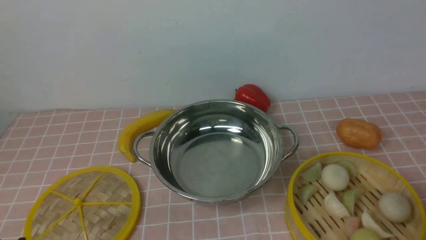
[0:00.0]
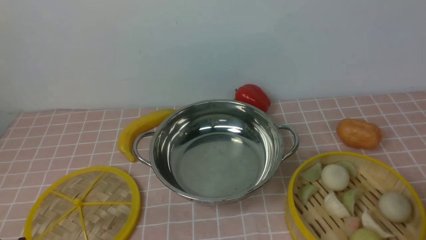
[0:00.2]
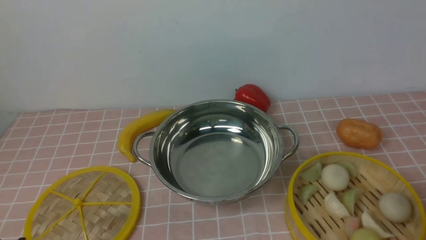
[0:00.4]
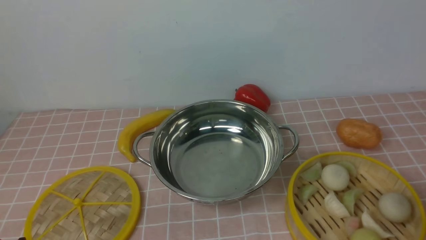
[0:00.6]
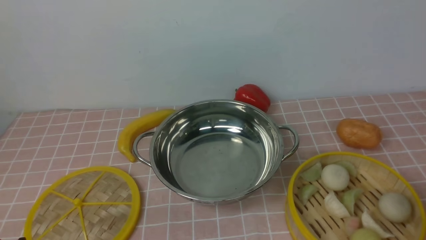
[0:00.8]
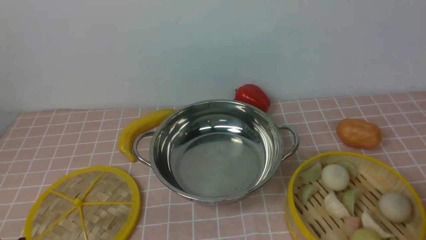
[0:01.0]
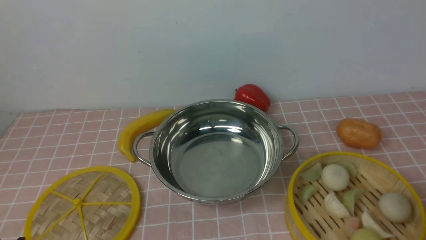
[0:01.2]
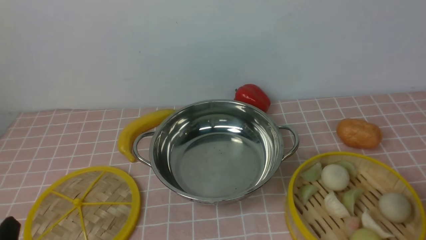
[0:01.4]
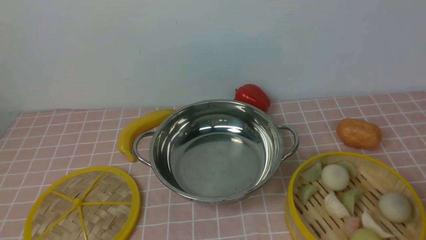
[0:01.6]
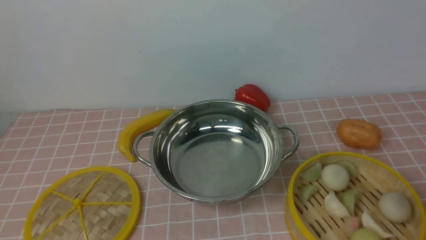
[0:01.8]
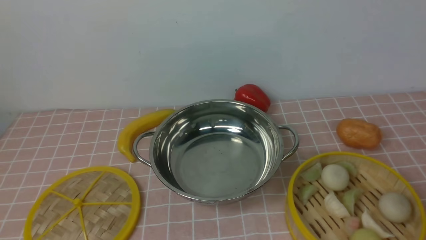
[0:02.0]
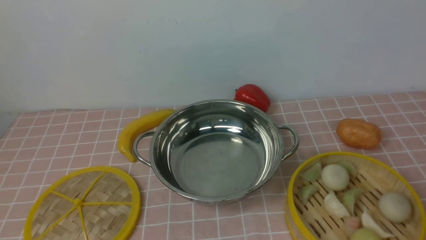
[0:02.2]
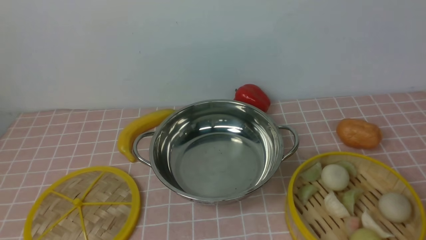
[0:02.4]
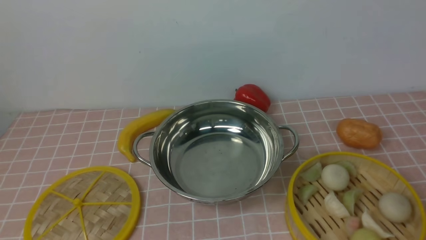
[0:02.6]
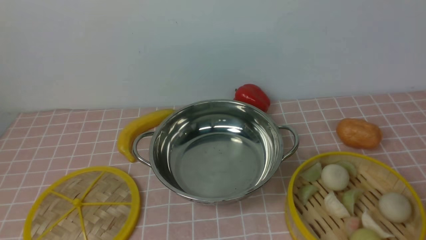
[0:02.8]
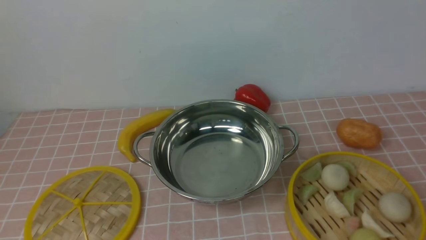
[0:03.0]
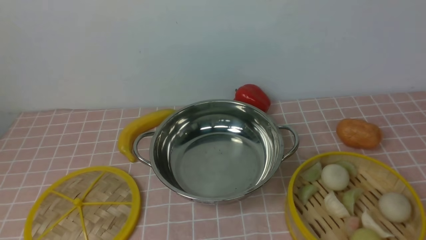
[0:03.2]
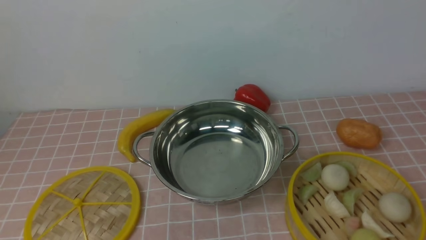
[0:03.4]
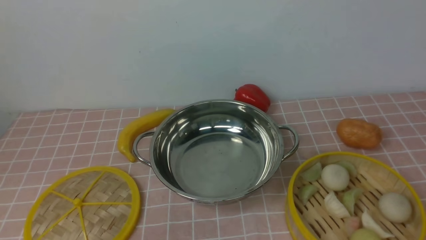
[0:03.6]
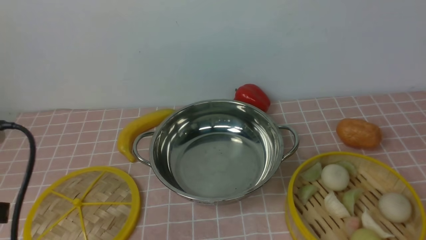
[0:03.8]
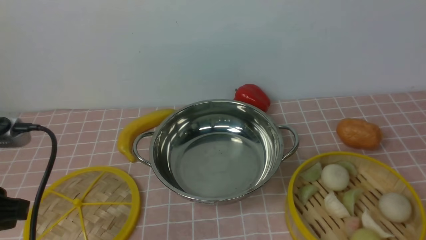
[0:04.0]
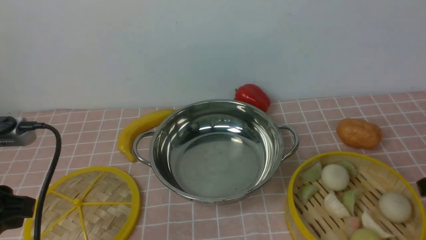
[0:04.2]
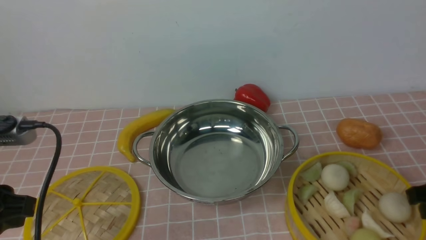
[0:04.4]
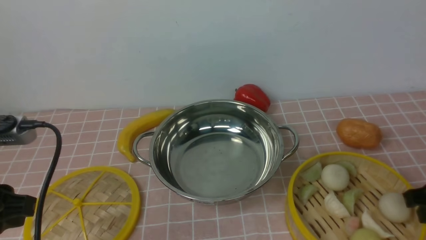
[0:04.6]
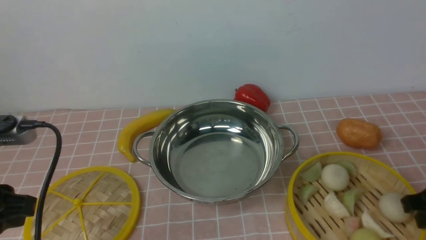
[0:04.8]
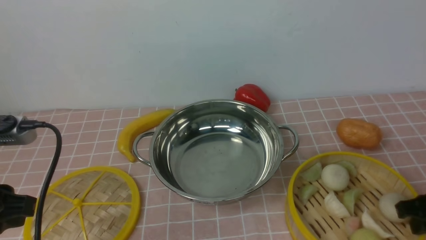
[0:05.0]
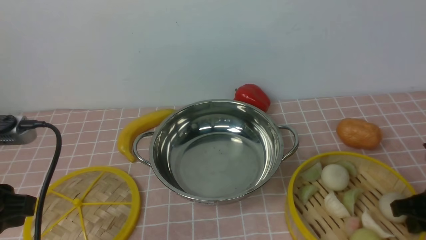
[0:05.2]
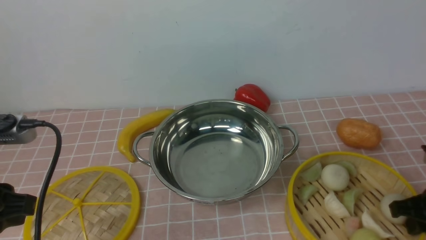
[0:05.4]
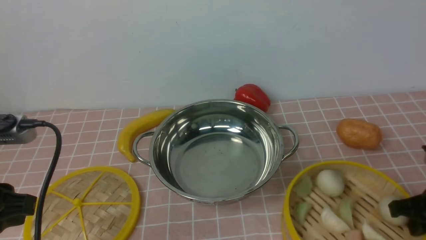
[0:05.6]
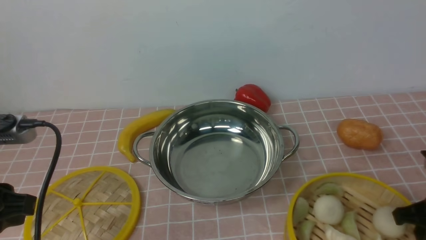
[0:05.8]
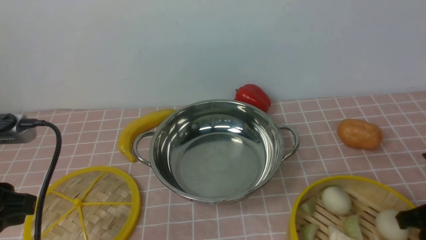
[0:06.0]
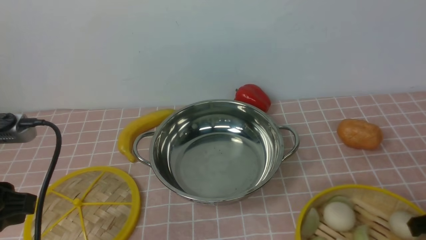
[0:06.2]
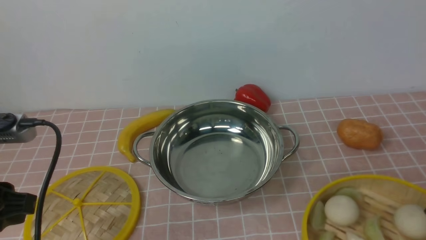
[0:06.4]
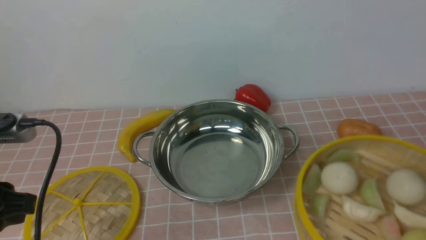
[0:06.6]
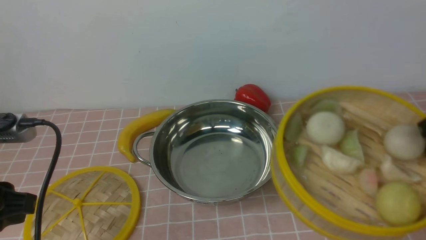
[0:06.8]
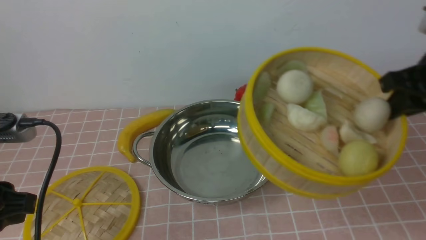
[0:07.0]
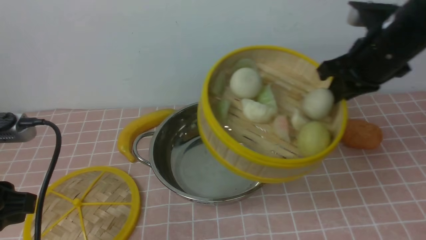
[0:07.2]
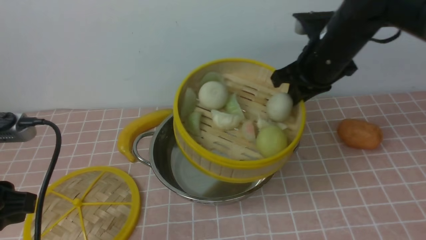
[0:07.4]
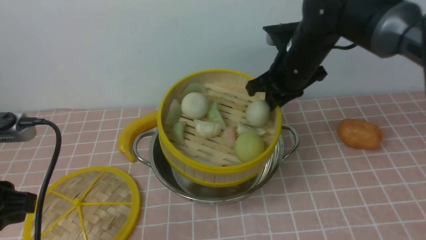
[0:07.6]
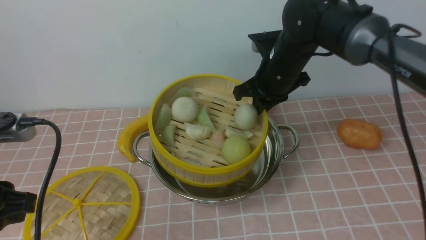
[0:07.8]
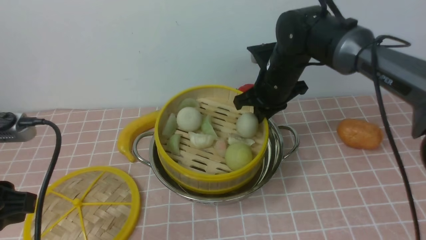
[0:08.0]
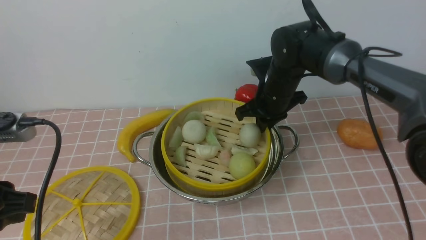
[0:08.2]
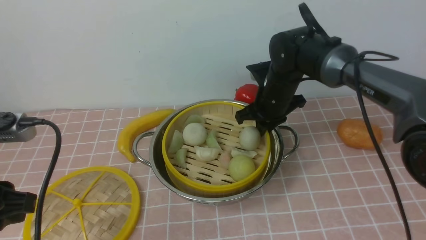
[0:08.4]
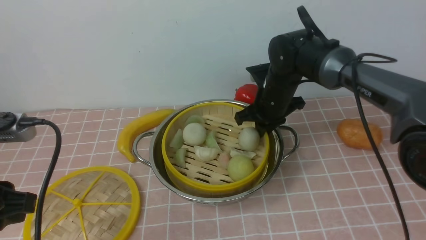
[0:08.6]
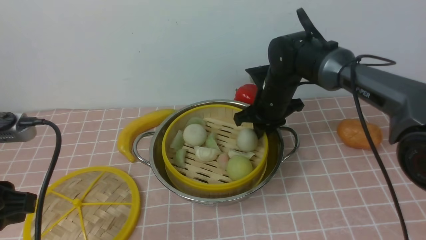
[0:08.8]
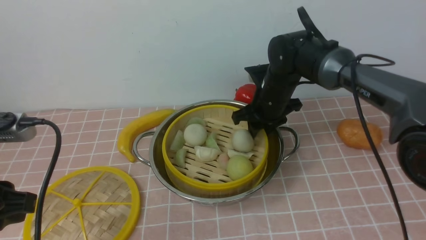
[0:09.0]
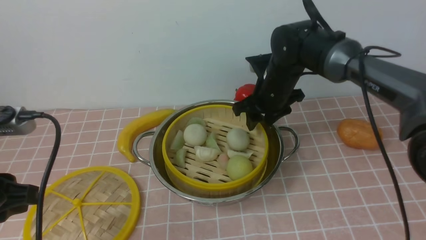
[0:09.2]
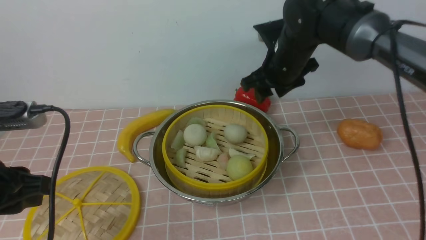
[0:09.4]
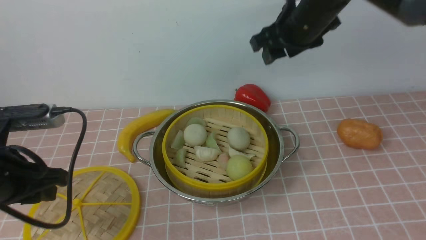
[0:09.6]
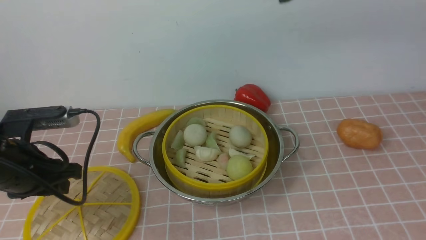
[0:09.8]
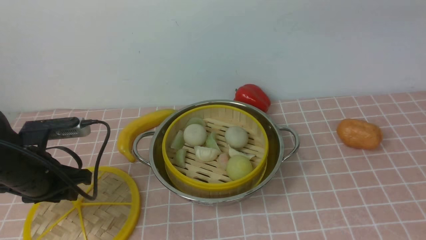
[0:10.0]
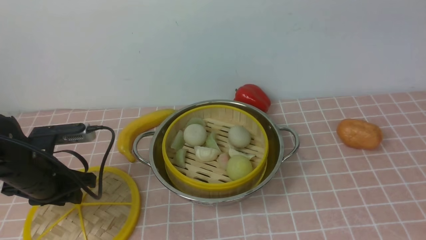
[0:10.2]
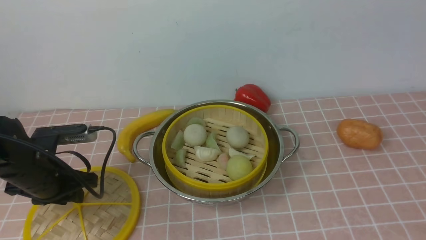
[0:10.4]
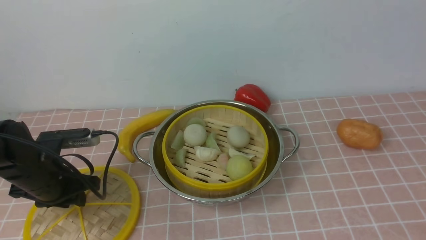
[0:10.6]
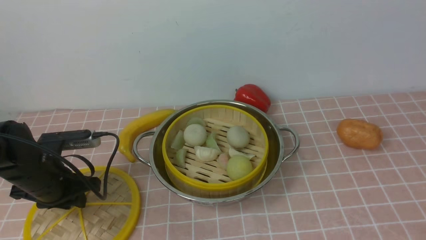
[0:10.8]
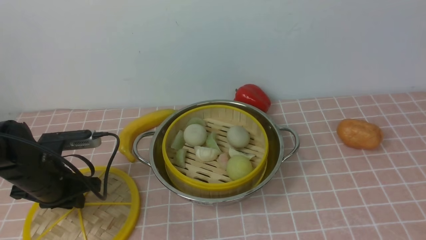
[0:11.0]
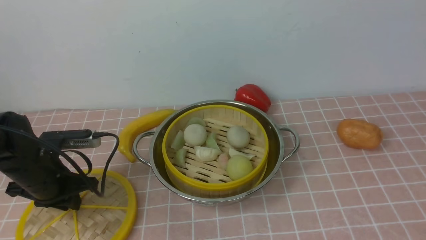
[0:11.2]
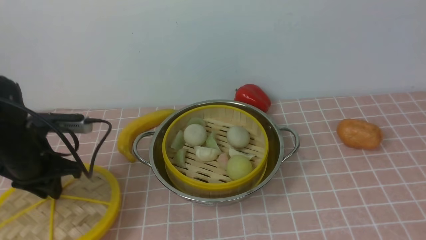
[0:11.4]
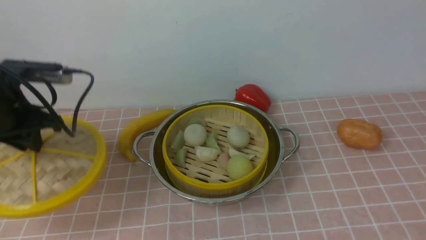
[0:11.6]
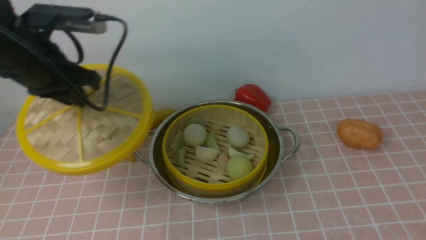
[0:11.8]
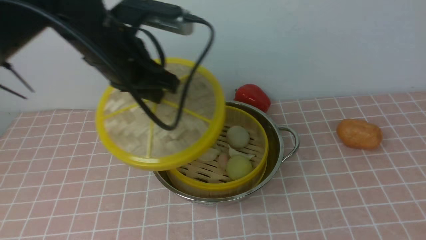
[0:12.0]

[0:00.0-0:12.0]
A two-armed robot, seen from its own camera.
Task of the whole recording: place the steamer in the pot on the pink tablecloth, and put the lid on the steamer.
Step, 0:00.0 to 0:06.4: use the right arm to lift the steamer closest to it.
Step, 0:06.6 to 0:09.2: use the right arm to put the steamer into the iron steamer pot in the middle.
Step, 0:09.4 to 0:11.2: use the left arm to lift the lid of the steamer.
0:03.0 to 0:04.4: The left gripper shifts approximately 15 cm forward.
0:04.4 to 0:06.0: The right gripper closes up.
0:06.0 to 0:07.6: The right gripper is displaced forward, to the left and upward by approximately 30 cm.
0:07.6 to 0:09.0: The right gripper goes approximately 10 cm downward, and opens its fingers.
0:09.0 to 0:10.4: The right gripper is displaced upward and backward by roughly 50 cm. The left gripper heads downward and forward, covering approximately 20 cm.
0:10.4 to 0:12.0: The left gripper shifts some 25 cm upward and to the right. Meanwhile the right gripper moves roughly 5 cm.

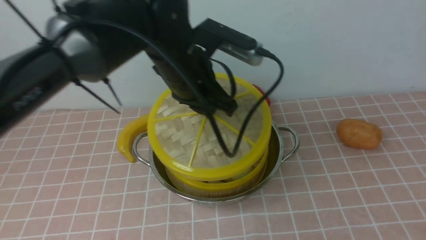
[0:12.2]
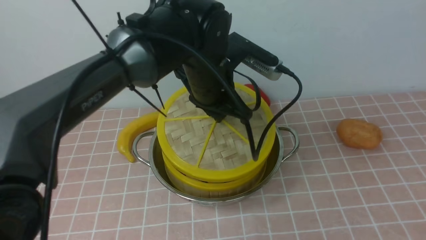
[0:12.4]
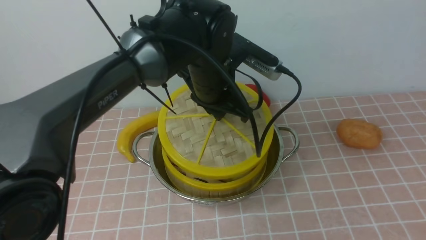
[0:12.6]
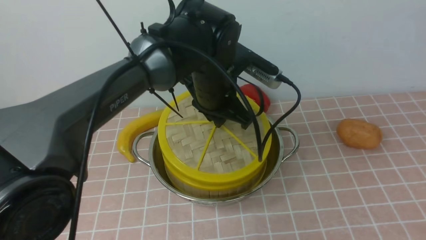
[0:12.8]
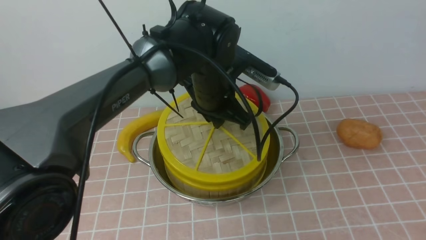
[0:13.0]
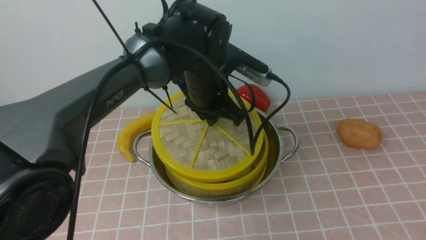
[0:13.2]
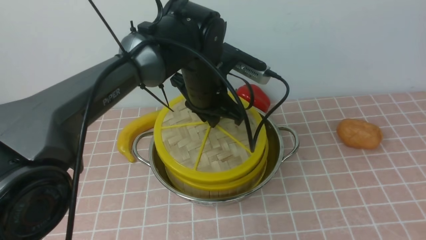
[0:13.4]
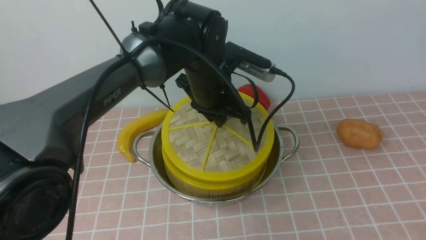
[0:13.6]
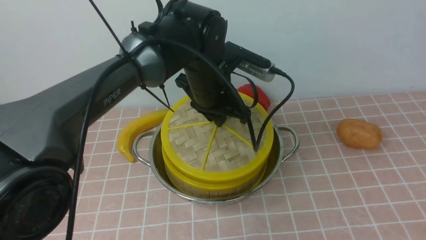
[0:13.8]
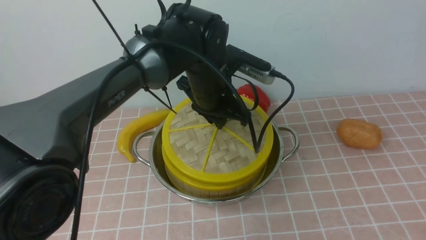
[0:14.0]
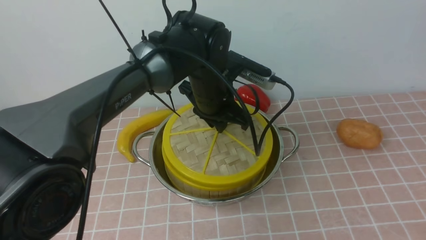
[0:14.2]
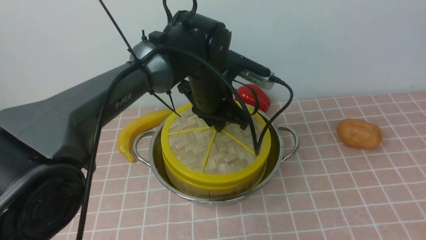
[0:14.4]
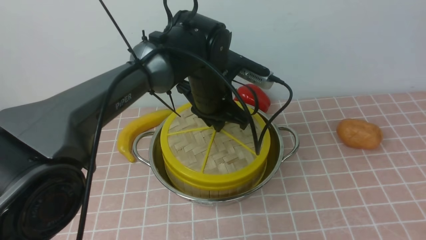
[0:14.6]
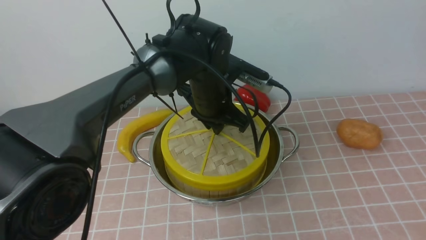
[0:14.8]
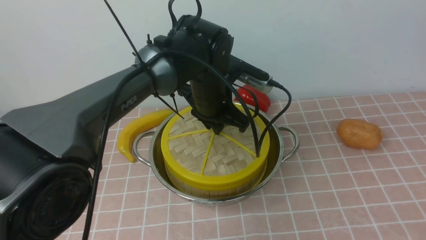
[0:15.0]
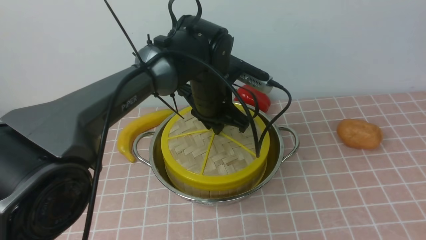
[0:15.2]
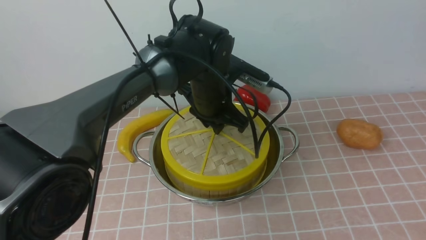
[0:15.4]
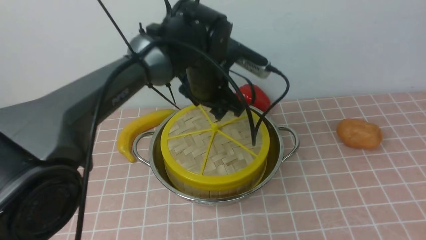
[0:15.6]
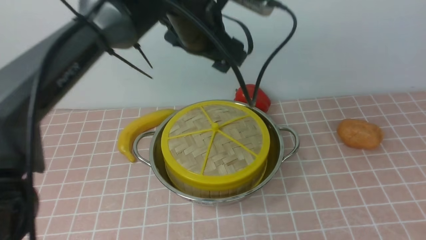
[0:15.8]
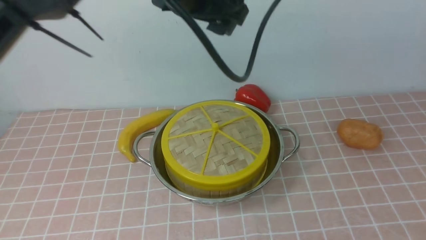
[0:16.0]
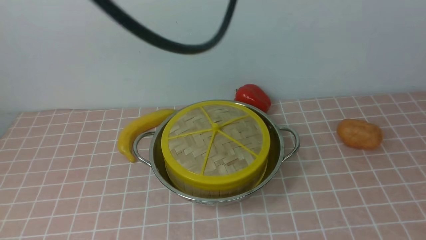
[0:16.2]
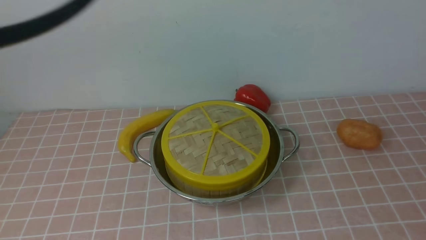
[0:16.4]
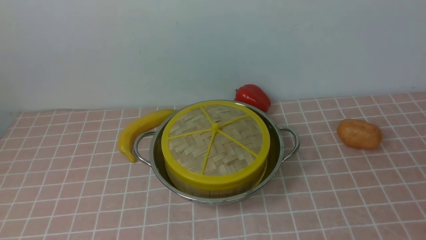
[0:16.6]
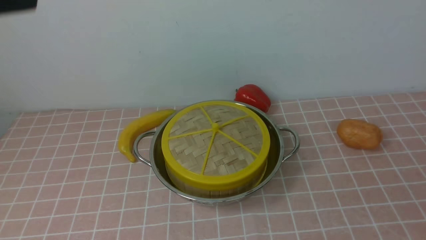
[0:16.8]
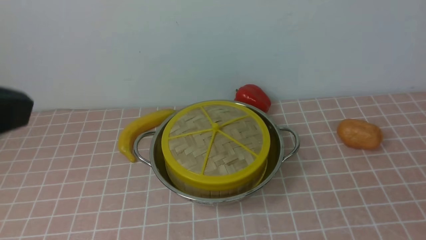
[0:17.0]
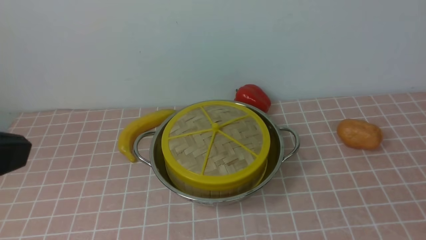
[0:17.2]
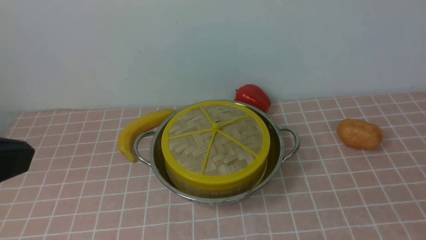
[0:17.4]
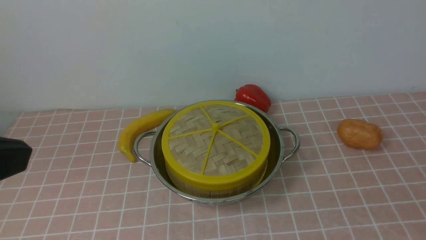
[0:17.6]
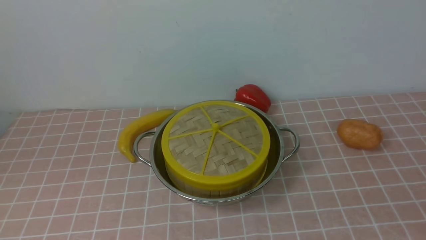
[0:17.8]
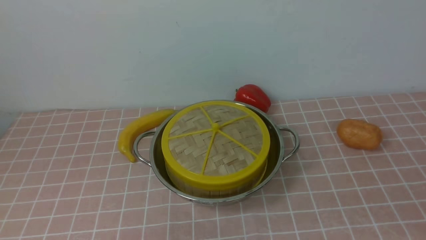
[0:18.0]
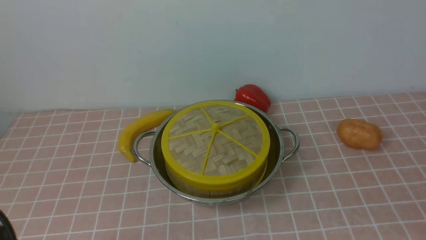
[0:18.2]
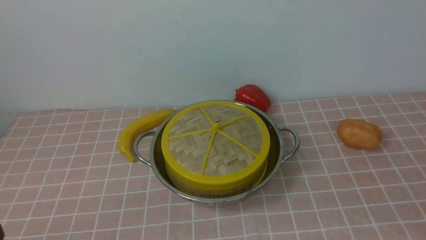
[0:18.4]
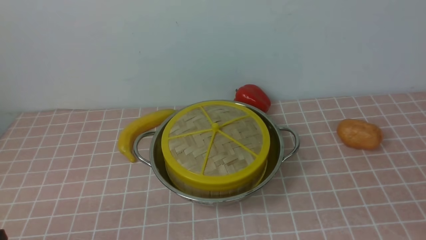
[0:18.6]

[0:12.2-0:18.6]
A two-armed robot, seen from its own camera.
Task of the whole recording: place the steamer in the pot on the pink tablecloth, and put the lid on the steamer.
Step, 0:12.2 to 0:15.4: use the left arm to place the steamer lid on the steamer.
0:12.2 to 0:13.8: The left gripper goes some 5 cm downward.
0:13.8 to 0:15.4: The grippers make only small movements.
0:15.4 to 0:17.0: The left gripper heads backward, upward and to the left, covering about 40 cm, and closes up. Meanwhile the right gripper heads downward, covering some 25 cm, and closes up.
0:17.0 to 0:18.6: The left gripper moves downward, about 30 cm.
